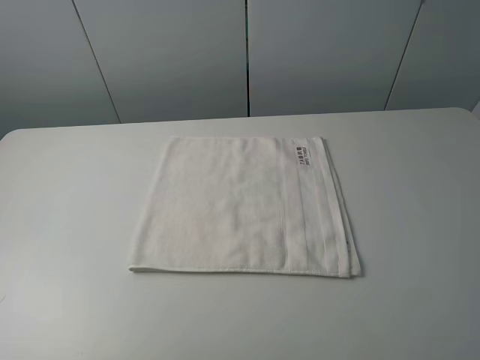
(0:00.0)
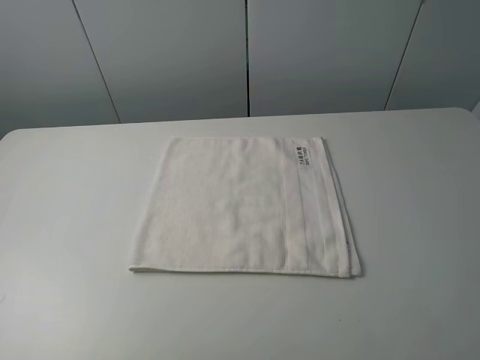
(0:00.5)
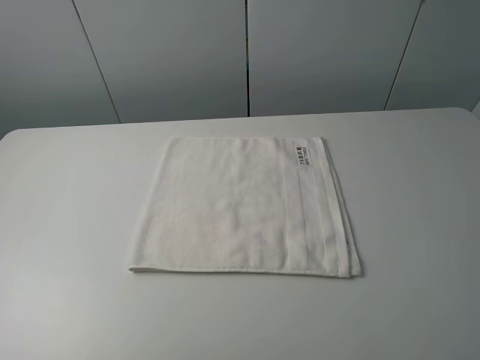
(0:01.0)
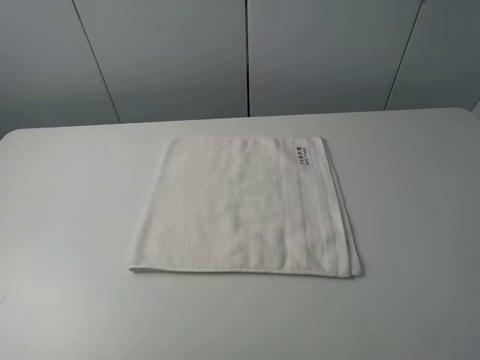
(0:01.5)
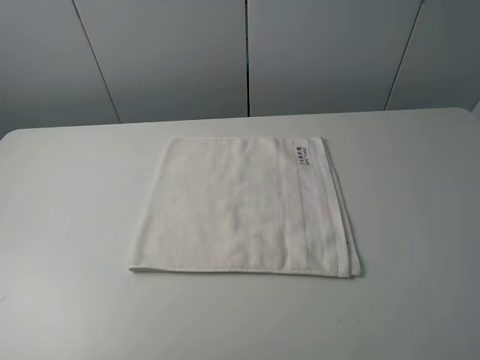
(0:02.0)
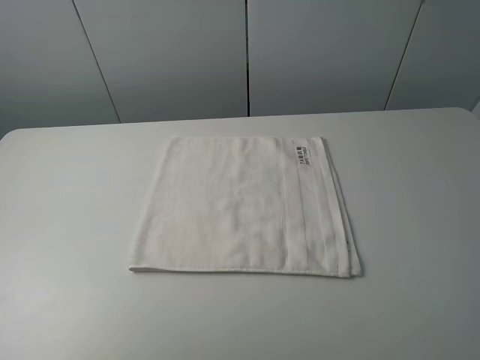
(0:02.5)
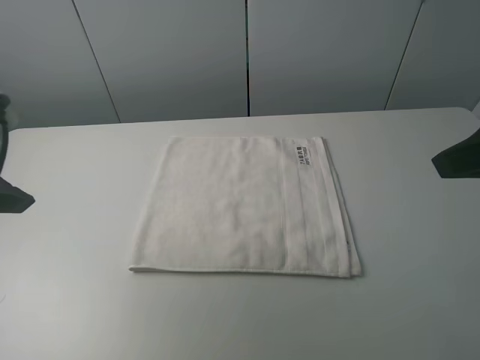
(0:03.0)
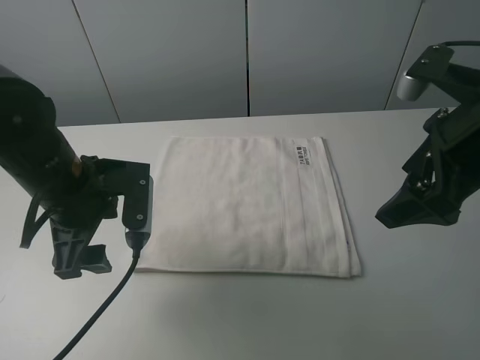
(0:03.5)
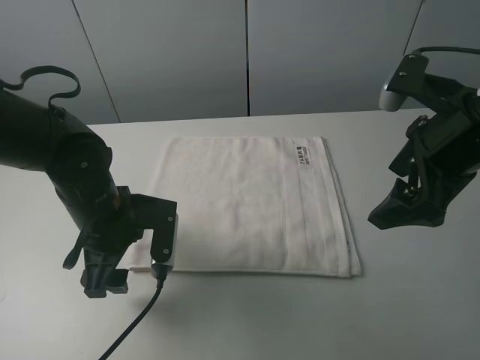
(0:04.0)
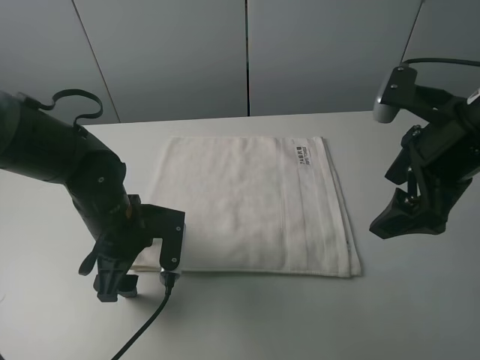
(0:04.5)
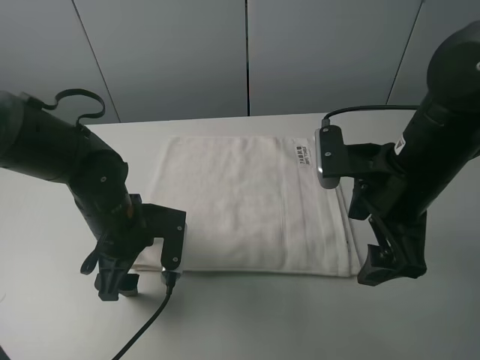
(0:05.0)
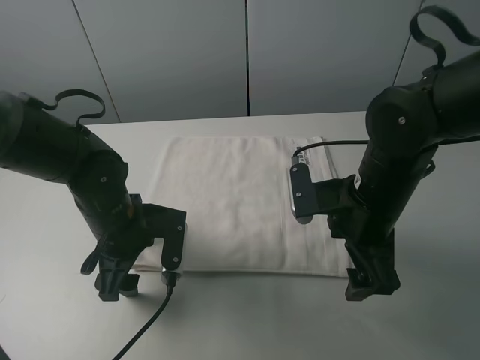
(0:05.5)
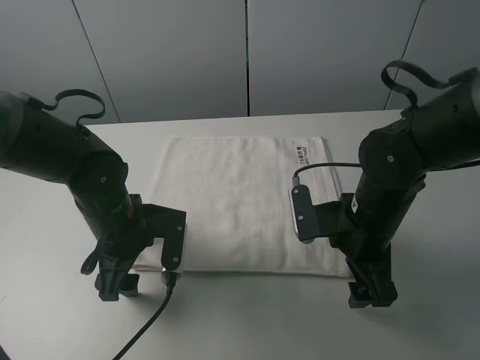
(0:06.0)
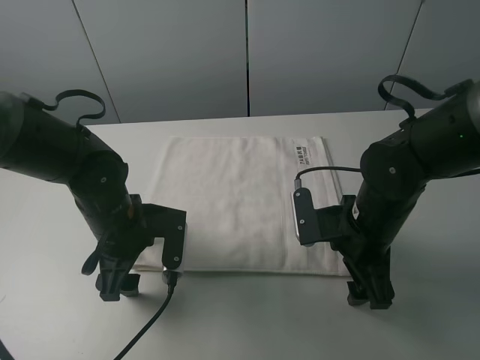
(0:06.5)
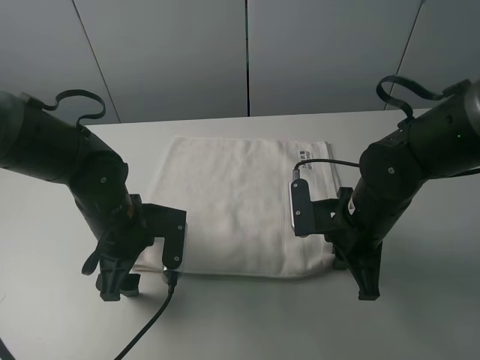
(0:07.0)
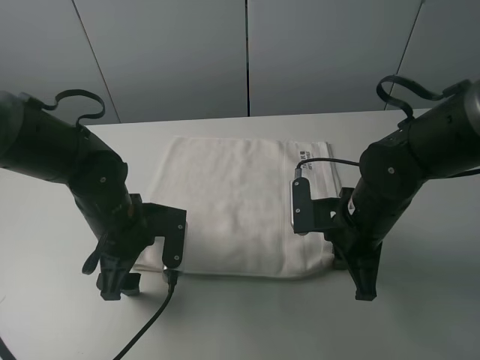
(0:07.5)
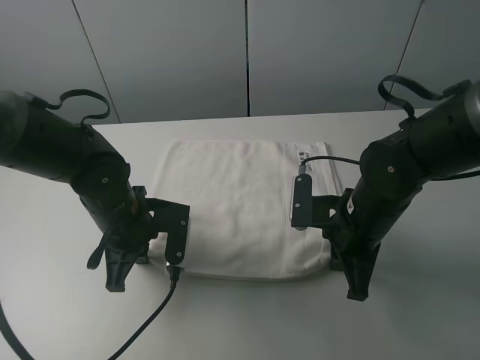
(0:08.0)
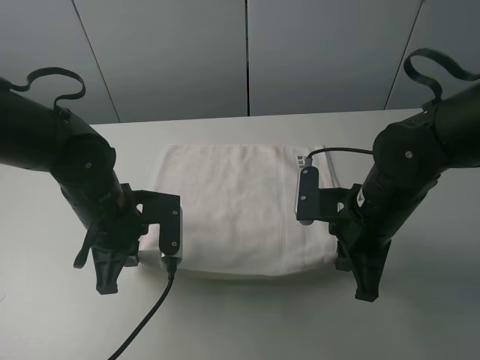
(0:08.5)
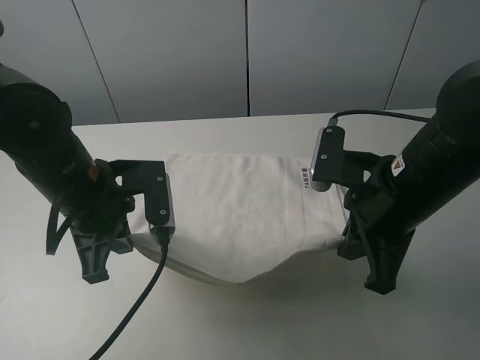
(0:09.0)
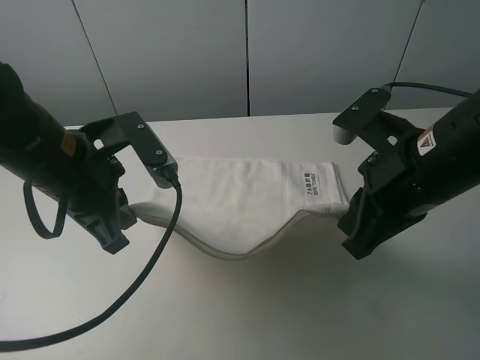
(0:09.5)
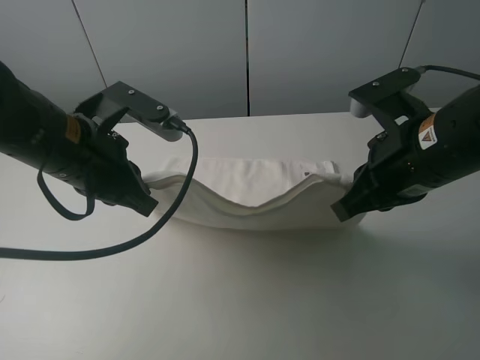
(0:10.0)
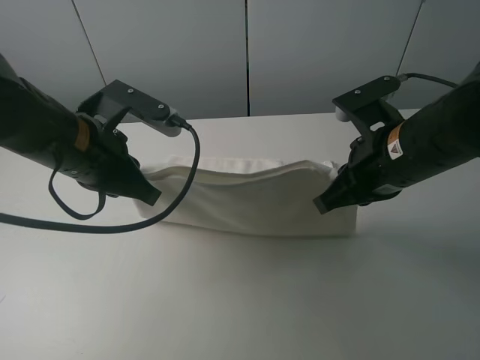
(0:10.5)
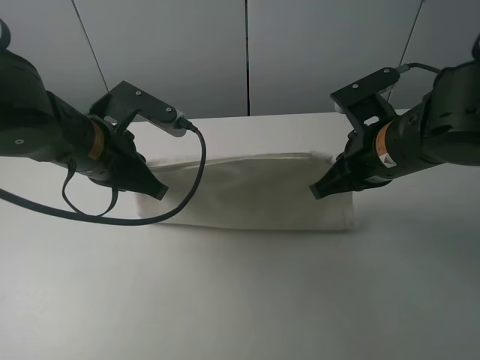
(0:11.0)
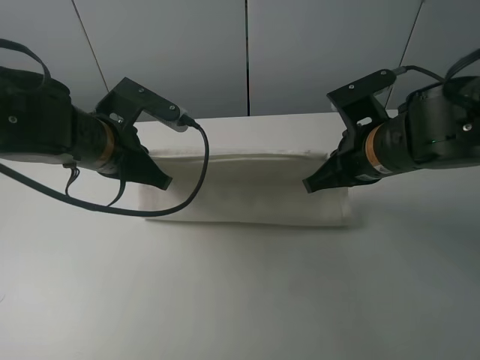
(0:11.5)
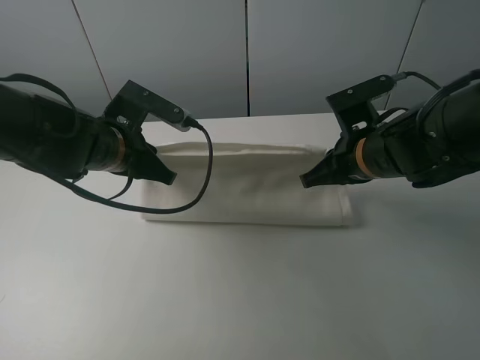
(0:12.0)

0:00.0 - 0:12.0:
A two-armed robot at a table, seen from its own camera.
Task of the whole recording: fold the towels on the table.
Step, 0:00.0 - 0:06.5: Grasp the white towel with the right gripper.
0:00.0 - 0:02.0: Both grippers stay put.
0:02.0 - 0:04.0: The right gripper goes approximately 20 cm forward. The left gripper is displaced forward, downward and to the right by about 35 cm.
0:04.0 - 0:06.0: The right gripper travels downward and to the left by some 15 cm.
0:06.0 - 0:08.0: The left gripper closes. Meanwhile the right gripper closes.
0:08.0 - 0:10.0: The two grippers go about 15 cm upward.
0:10.0 - 0:12.0: Both grippers travel together forward and downward, roughly 10 cm. The left gripper opens up.

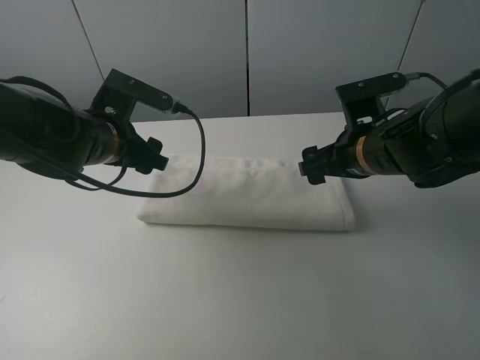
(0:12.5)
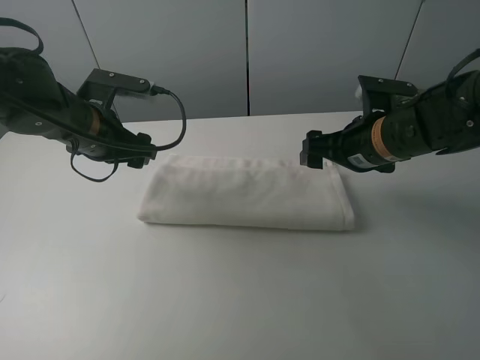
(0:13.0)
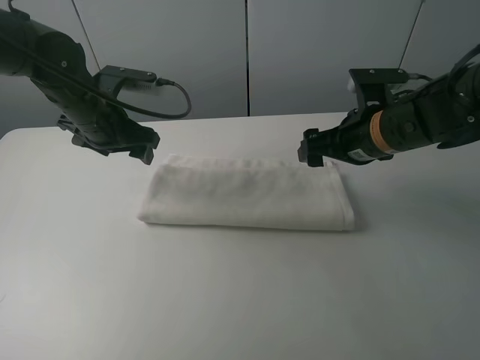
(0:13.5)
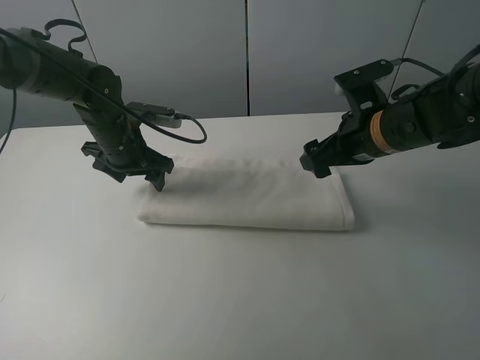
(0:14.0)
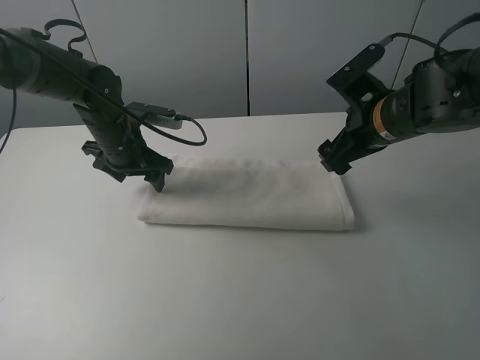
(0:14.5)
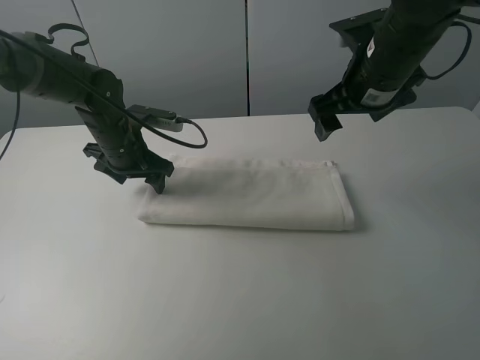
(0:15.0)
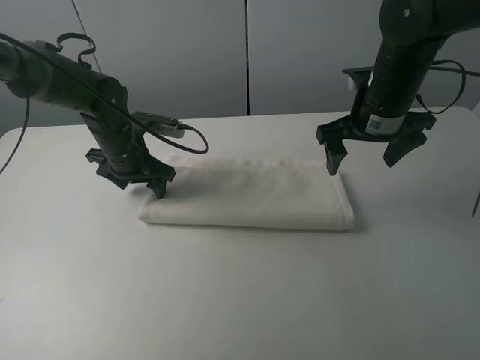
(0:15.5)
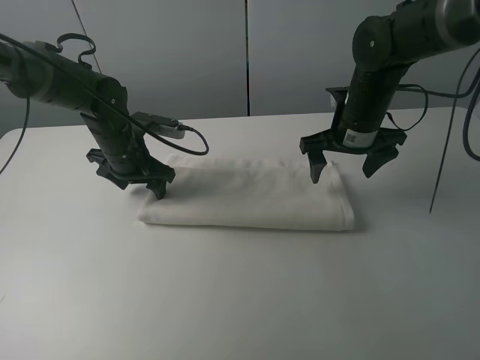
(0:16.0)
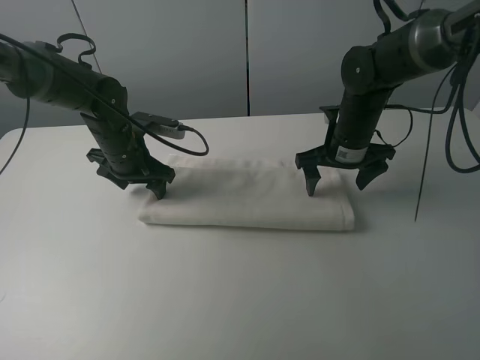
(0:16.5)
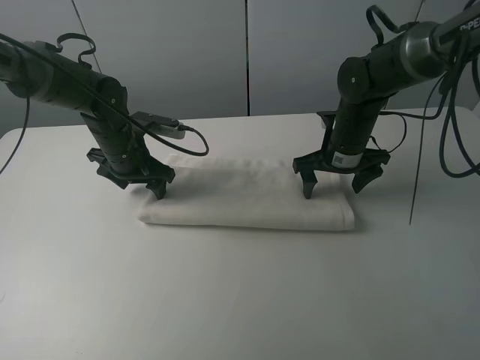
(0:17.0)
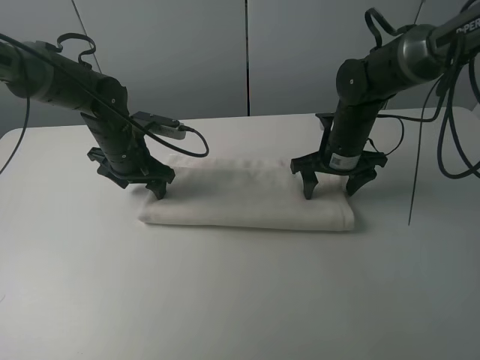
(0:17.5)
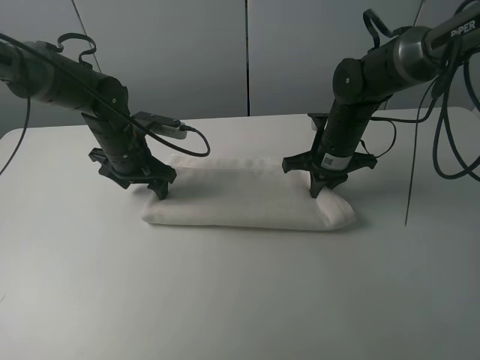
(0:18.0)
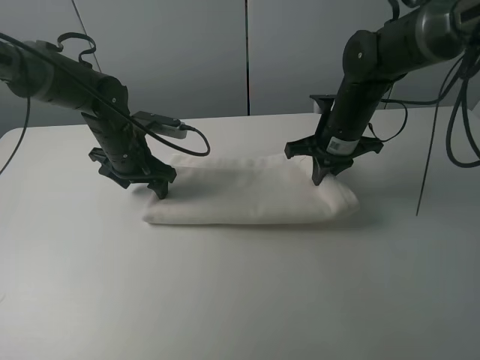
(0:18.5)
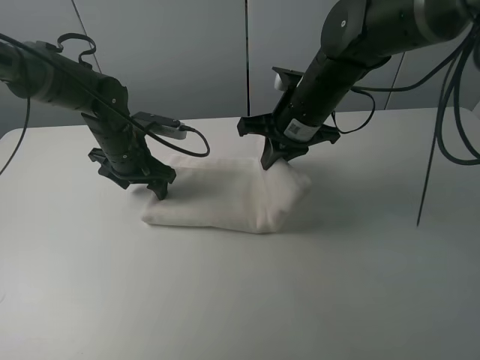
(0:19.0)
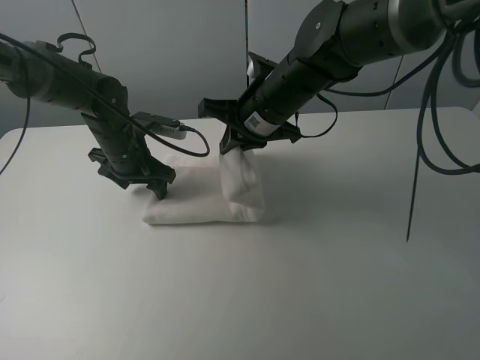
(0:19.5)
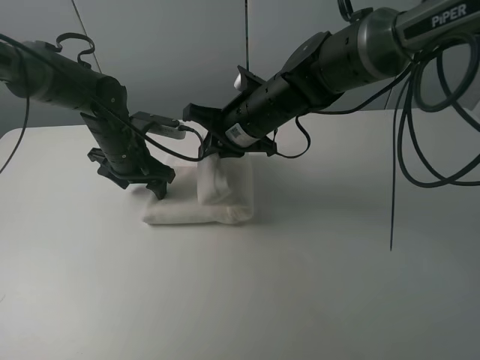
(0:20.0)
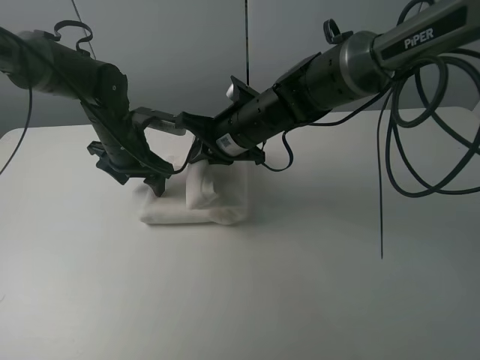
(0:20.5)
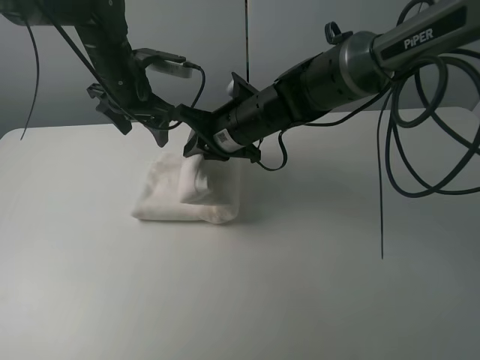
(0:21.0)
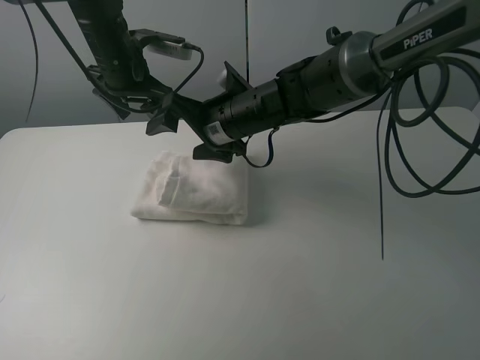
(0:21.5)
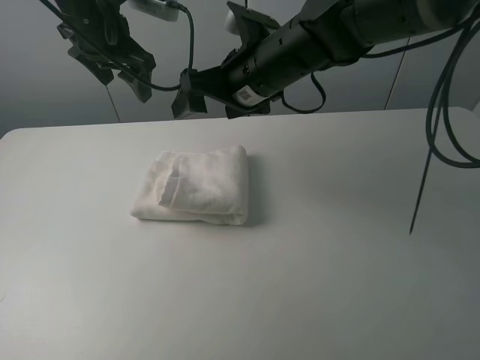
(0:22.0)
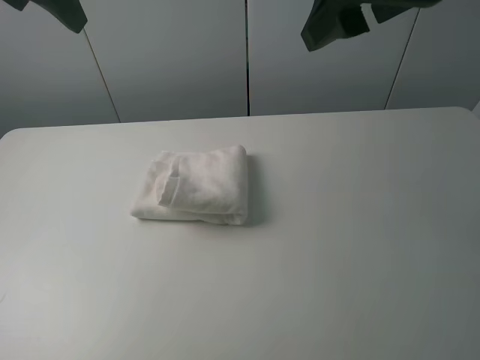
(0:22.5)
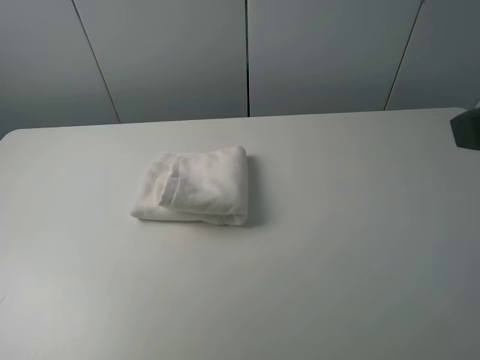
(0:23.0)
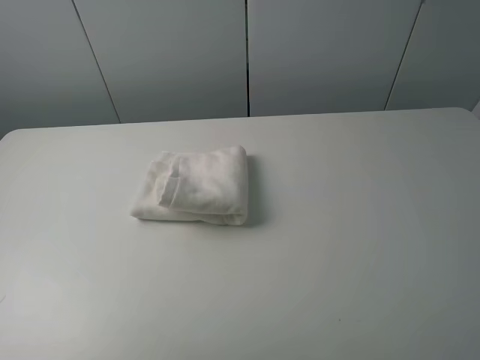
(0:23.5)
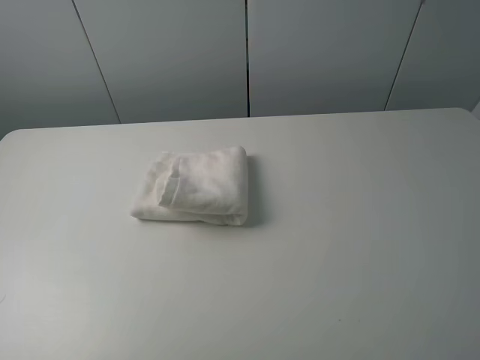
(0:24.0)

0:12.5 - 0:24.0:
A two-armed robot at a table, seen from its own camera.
Task of the whole recording: fold the towels on the table.
Step, 0:12.5 - 0:13.5: Press on the white towel with the left gripper.
Step, 0:14.0 - 0:21.0: Fold the white towel from right to left with right gripper.
0:12.5 - 0:14.5: The left gripper heads forward, covering some 10 cm. Meanwhile the right gripper moves about 5 cm.
0:14.5 - 0:16.5: The right gripper is displaced downward and forward by approximately 10 cm.
0:16.5 - 0:18.5: The right gripper closes its fingers.
0:18.5 - 0:20.0: The right gripper is displaced to the left by roughly 15 cm.
0:20.0 - 0:22.0: The left gripper moves upward, approximately 20 cm; the right gripper shifts about 10 cm upward, and opens.
0:22.0 - 0:24.0: The left gripper is displaced backward by some 40 cm. The right gripper moves backward and to the right, about 40 cm.

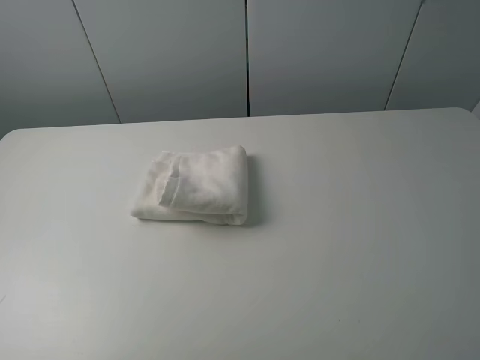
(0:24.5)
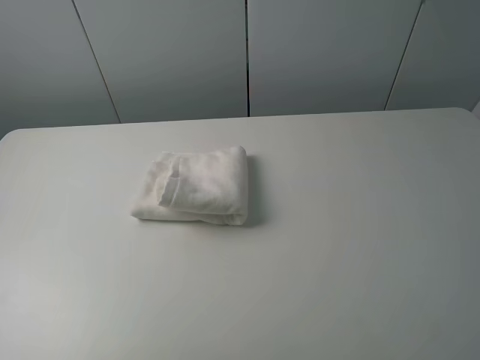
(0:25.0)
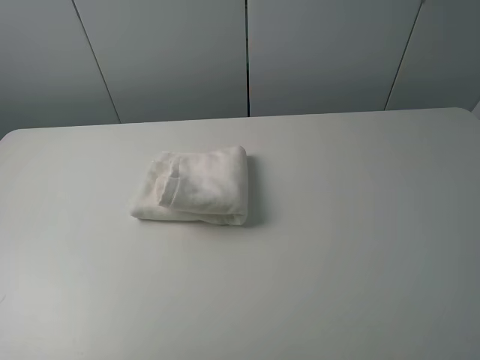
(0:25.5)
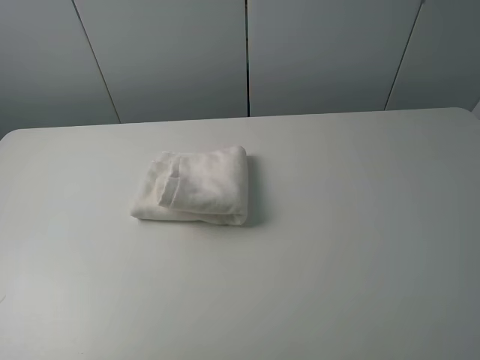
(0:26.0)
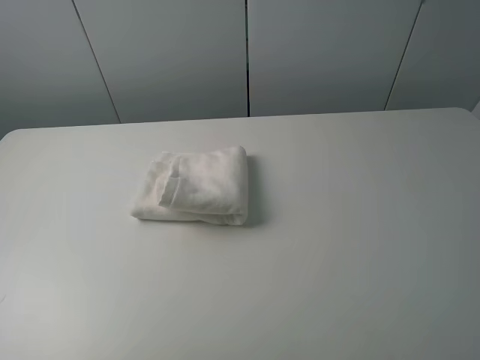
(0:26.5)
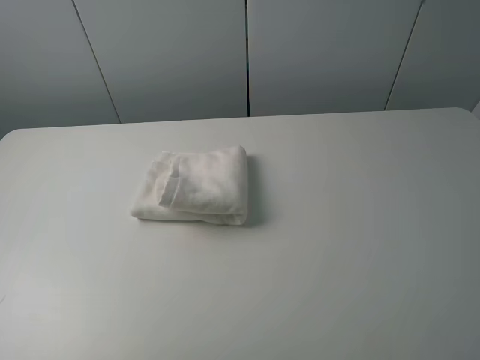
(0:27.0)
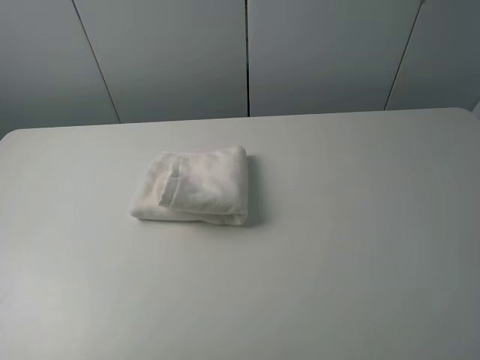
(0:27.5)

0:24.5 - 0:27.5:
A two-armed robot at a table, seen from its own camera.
Task of the whole recording: fold the towels on the table.
0:26.0 - 0:27.5: The two grippers keep their place.
